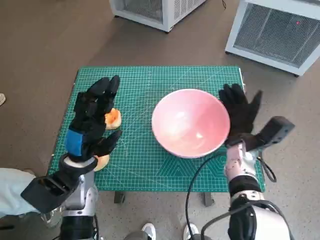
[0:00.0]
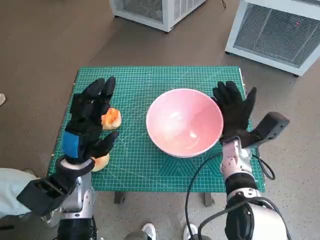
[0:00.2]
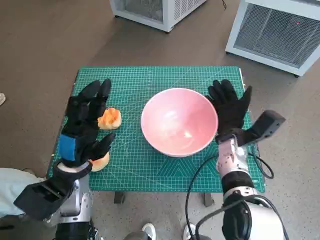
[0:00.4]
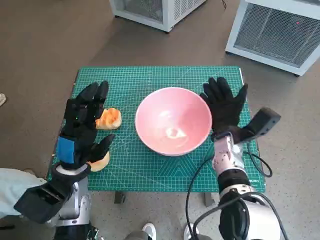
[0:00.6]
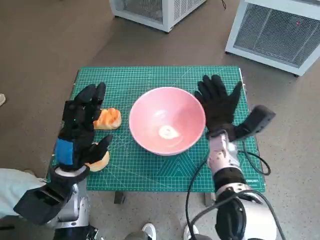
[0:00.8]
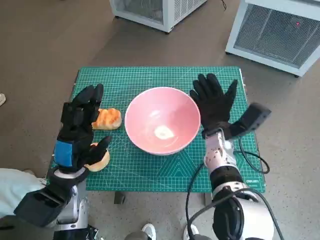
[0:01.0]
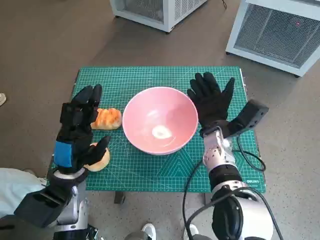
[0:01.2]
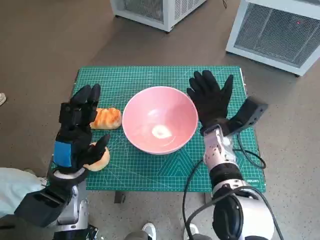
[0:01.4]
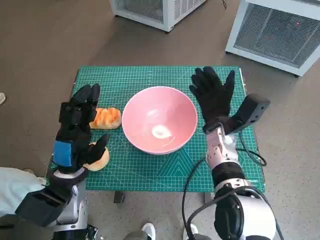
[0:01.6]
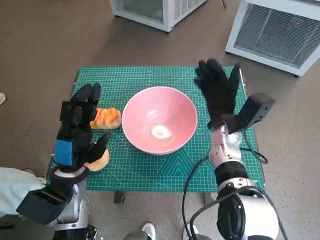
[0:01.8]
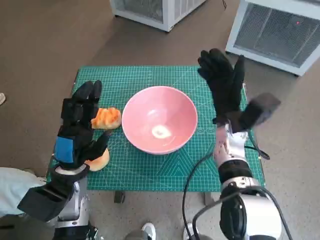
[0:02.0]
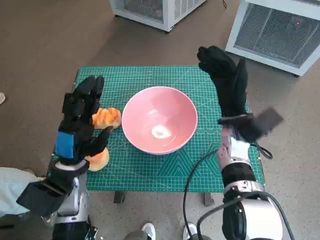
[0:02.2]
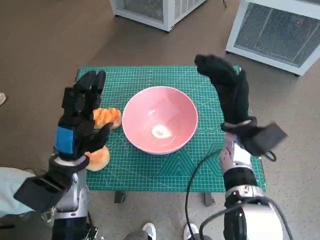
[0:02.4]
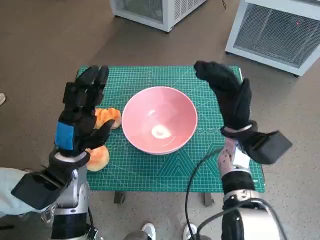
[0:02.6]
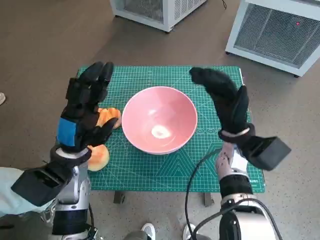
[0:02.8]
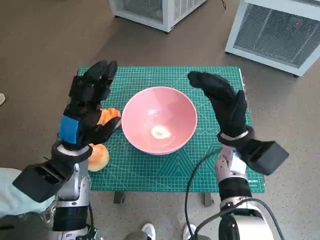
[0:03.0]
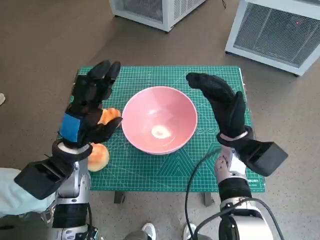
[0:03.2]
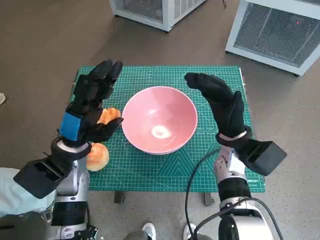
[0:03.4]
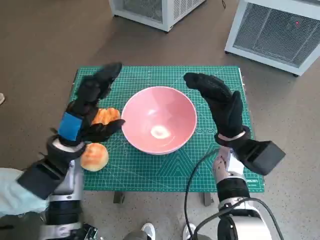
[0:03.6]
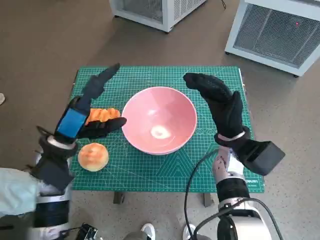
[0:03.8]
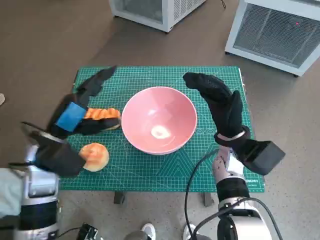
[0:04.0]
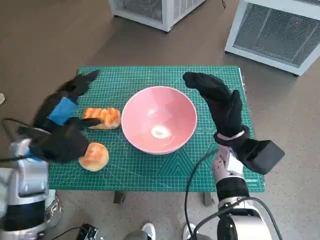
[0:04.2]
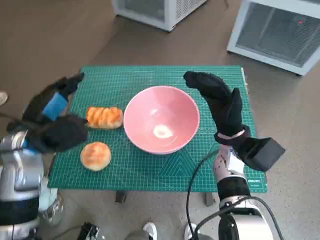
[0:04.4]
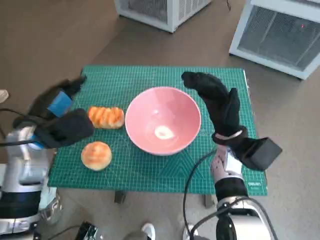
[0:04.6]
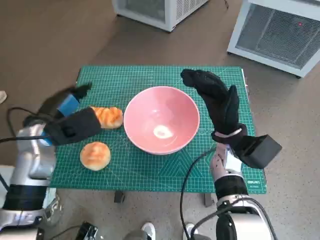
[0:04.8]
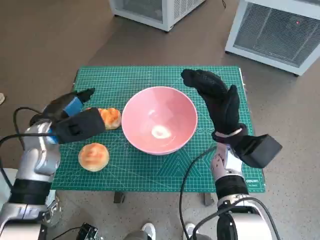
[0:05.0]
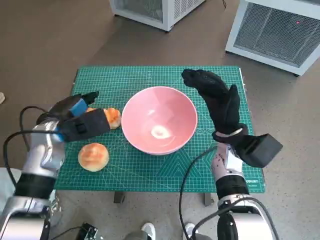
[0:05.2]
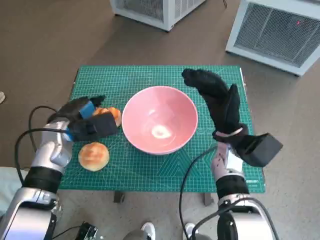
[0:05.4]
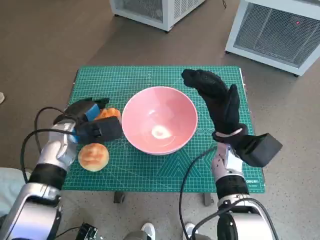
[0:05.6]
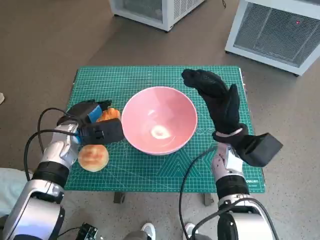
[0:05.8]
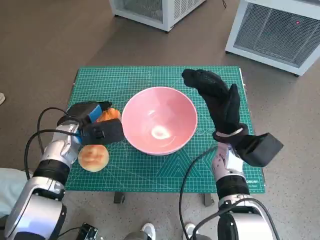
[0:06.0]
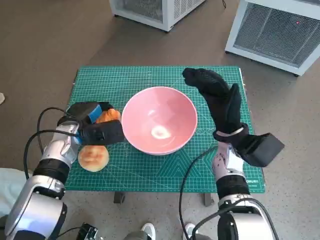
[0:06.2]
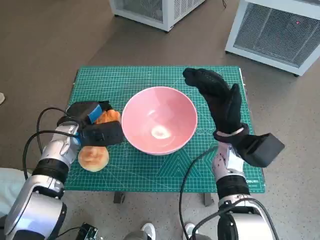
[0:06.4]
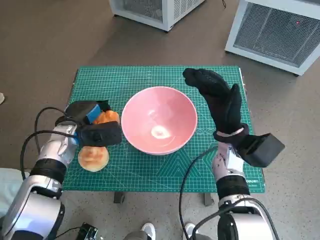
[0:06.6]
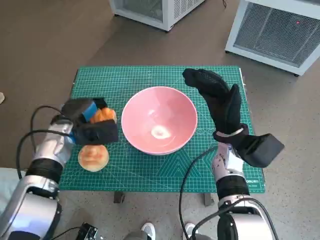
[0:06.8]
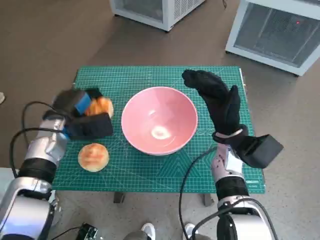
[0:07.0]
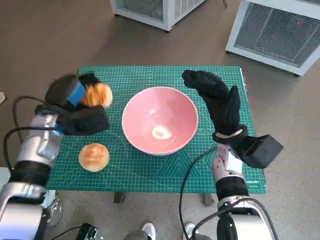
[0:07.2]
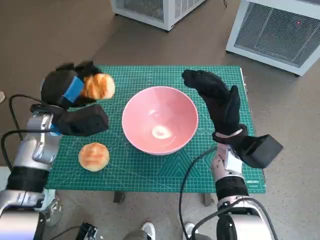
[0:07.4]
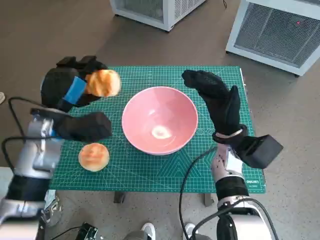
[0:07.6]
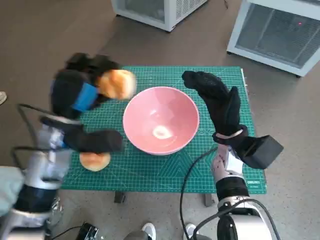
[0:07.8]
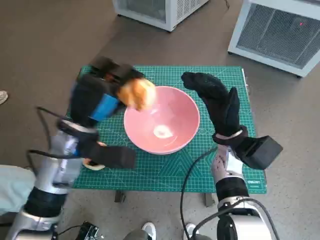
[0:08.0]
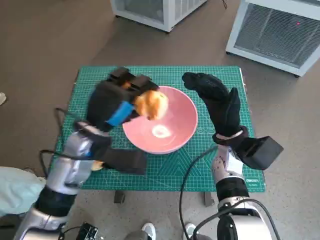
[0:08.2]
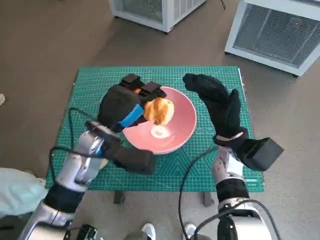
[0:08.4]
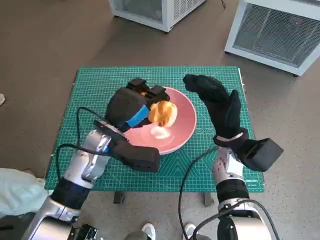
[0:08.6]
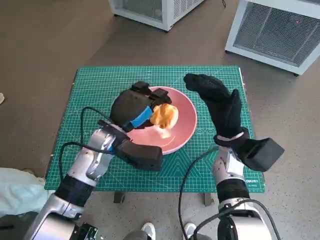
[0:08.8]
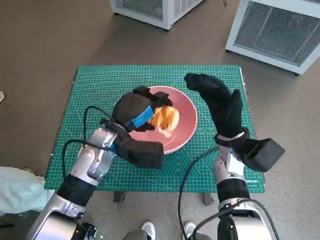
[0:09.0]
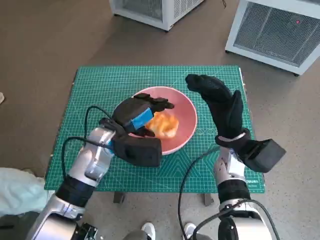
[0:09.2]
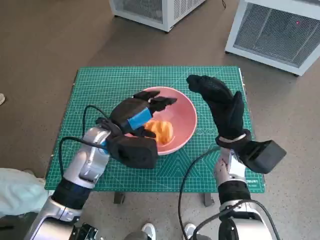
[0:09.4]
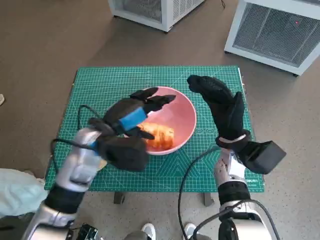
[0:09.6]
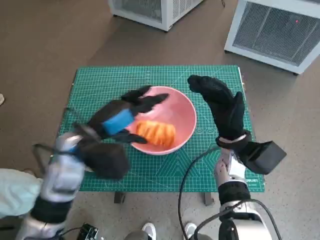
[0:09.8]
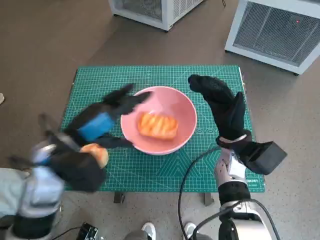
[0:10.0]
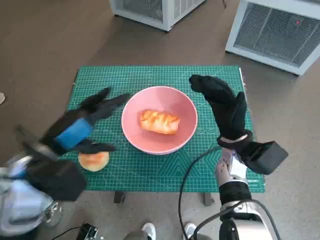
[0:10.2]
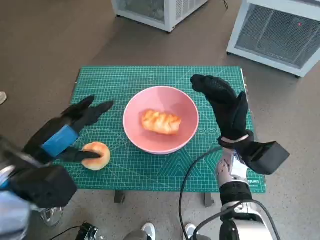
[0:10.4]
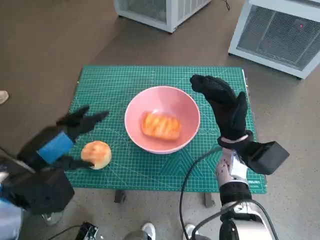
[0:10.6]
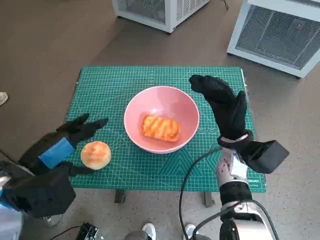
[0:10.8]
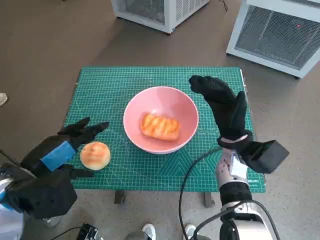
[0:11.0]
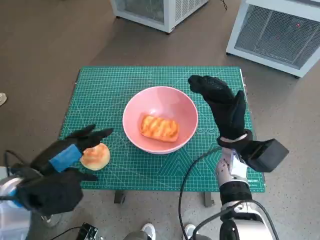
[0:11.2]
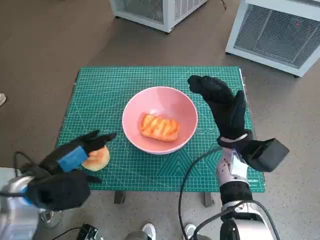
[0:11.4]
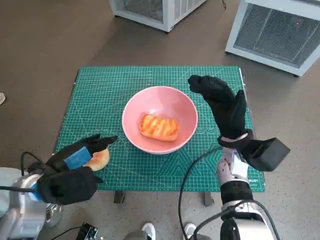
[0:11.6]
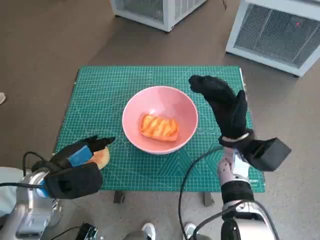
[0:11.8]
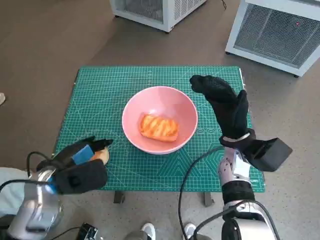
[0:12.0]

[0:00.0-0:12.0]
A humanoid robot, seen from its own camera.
Task of the whole recording: Push the bowl into the center of the table and put the bread into the bowl.
Step, 0:01.8 to 0:06.2: Grasp the long bread with left hand.
Step, 0:06.4 to 0:09.6: Place the long bread in pink bowl with left hand.
0:00.0 to 0:01.6: The right hand travels to the left by approximately 5 cm.
0:01.6 to 0:03.0: The left hand ends up some 5 cm from where it was.
0:03.0 to 0:04.4: The left hand goes some 5 cm to the left.
0:04.4 to 0:06.0: The left hand moves downward and forward, about 10 cm.
0:06.0 to 0:07.6: The left hand heads upward, covering roughly 5 cm.
0:07.6 to 0:09.0: The left hand is displaced to the right by some 10 cm.
0:09.0 to 0:10.4: The left hand travels to the left, backward and upward by some 15 cm.
0:10.4 to 0:12.0: The left hand heads downward, covering some 10 cm.

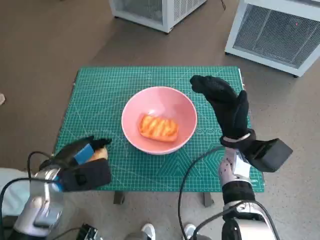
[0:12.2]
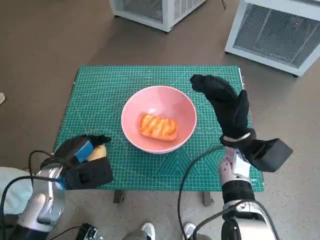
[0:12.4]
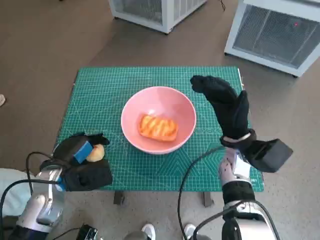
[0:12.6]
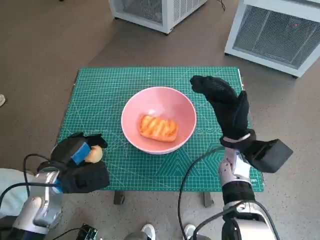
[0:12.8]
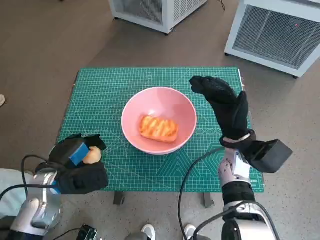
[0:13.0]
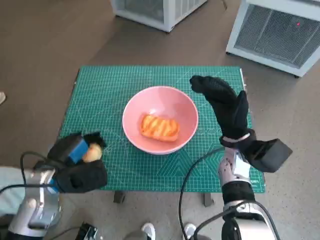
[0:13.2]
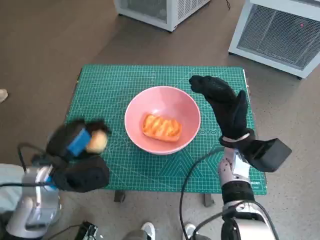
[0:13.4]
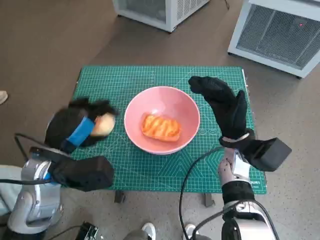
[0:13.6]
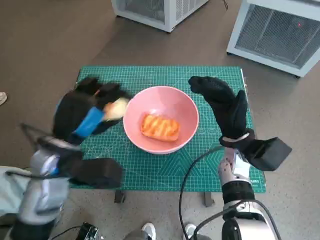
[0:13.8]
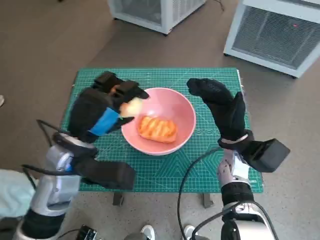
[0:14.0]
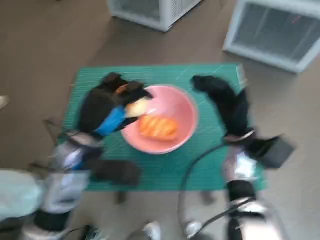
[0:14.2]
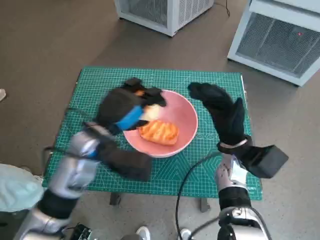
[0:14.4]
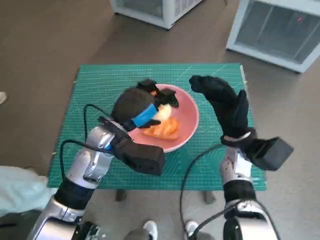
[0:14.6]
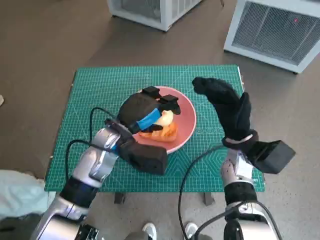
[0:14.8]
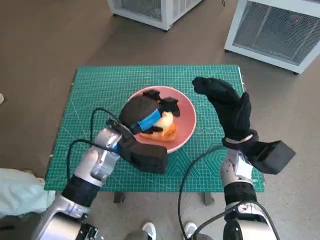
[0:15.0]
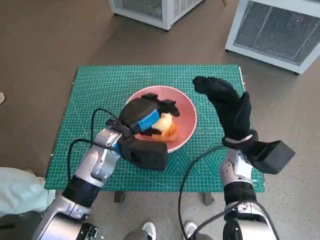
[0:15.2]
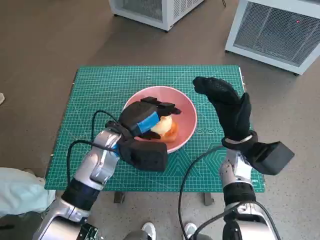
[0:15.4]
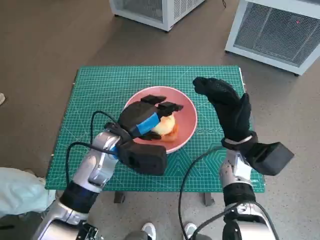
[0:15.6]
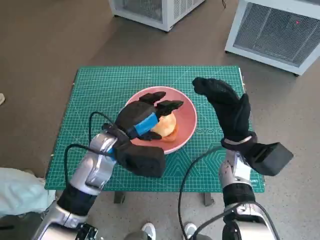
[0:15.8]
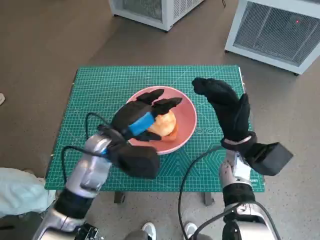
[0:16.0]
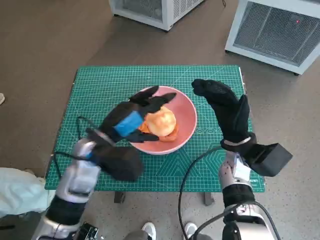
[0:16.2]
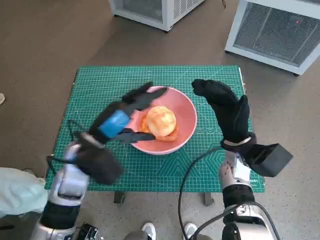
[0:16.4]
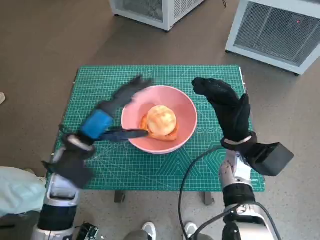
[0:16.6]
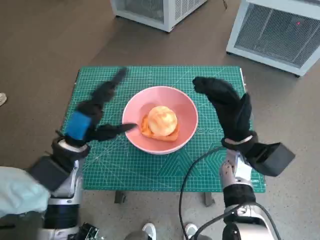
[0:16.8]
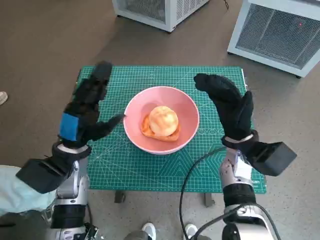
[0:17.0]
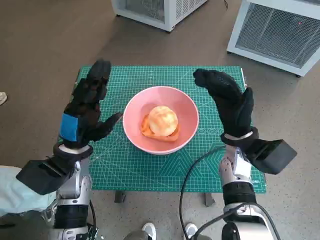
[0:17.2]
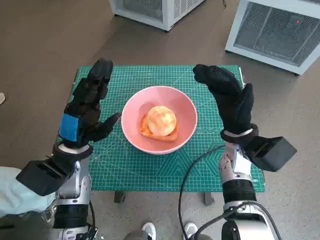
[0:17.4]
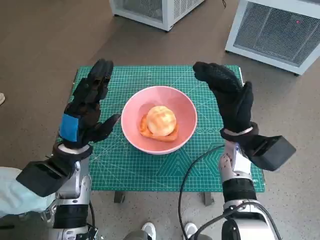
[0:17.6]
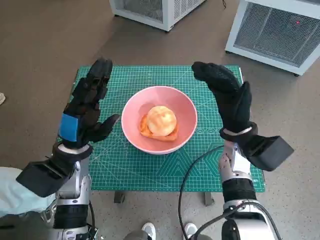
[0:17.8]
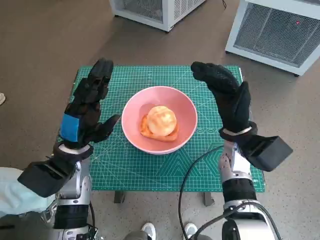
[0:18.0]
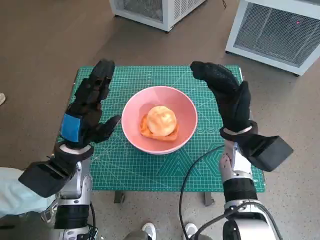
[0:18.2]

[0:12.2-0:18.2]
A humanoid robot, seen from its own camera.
Task of the whole recording: Push the bowl into the center of the table and put the bread into the bowl.
Step, 0:12.4 to 0:16.2: Place the round bread in pink bowl with left hand.
0:12.2 to 0:13.8: The left hand moves upward, approximately 10 cm.
0:13.8 to 0:15.2: The left hand travels to the right, forward and downward by approximately 10 cm.
0:15.2 to 0:16.6: The left hand travels to the left by about 5 cm.

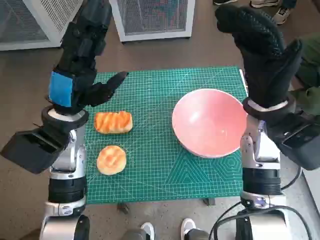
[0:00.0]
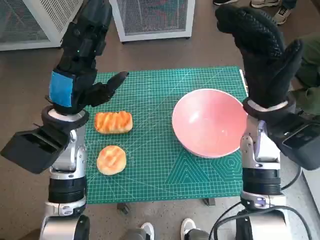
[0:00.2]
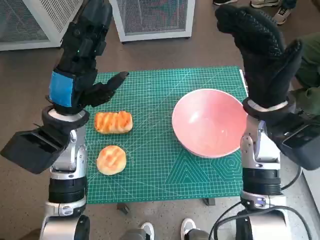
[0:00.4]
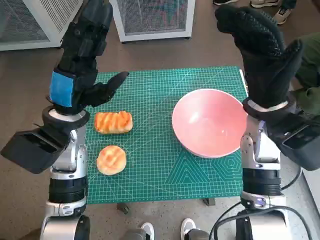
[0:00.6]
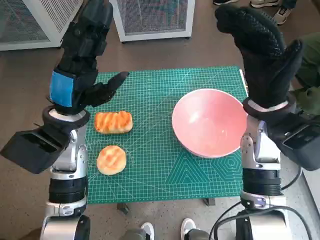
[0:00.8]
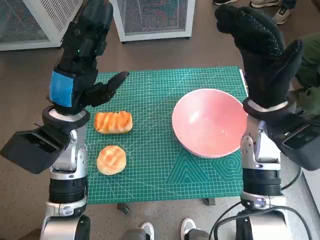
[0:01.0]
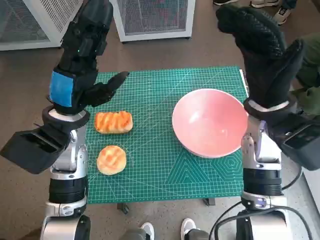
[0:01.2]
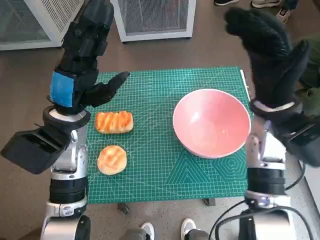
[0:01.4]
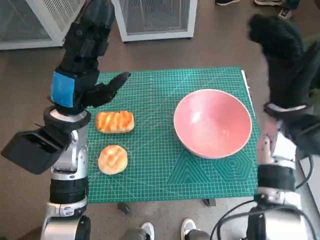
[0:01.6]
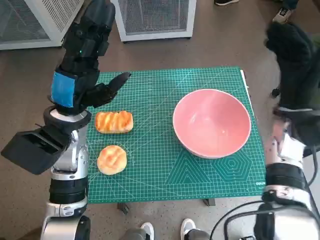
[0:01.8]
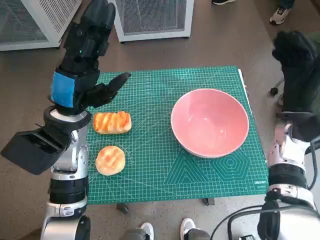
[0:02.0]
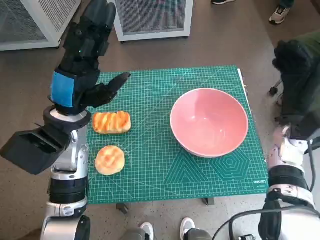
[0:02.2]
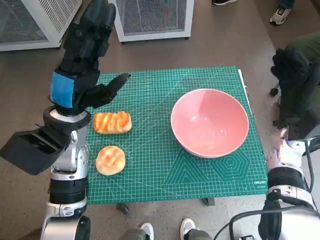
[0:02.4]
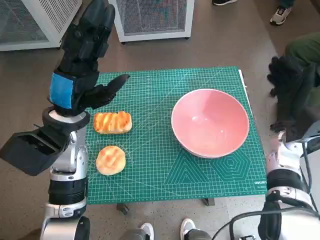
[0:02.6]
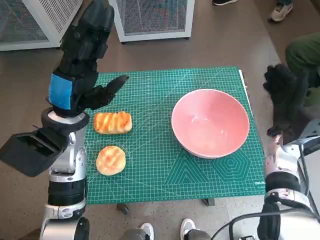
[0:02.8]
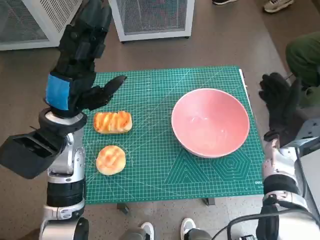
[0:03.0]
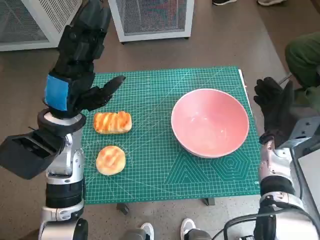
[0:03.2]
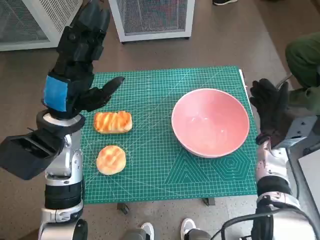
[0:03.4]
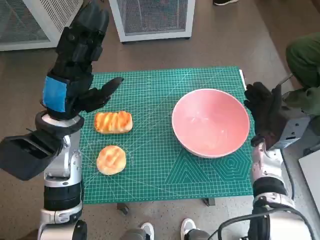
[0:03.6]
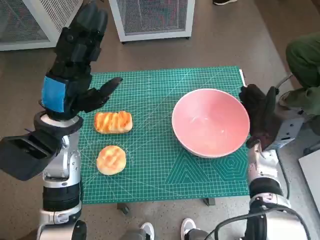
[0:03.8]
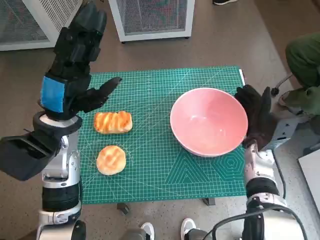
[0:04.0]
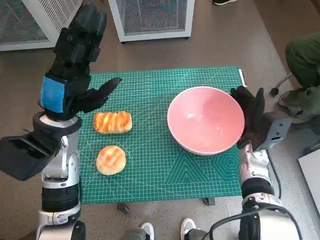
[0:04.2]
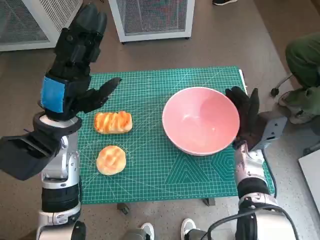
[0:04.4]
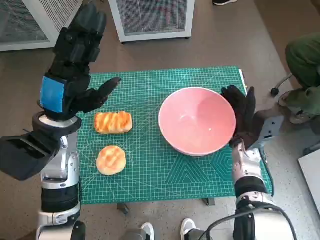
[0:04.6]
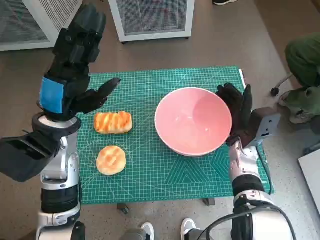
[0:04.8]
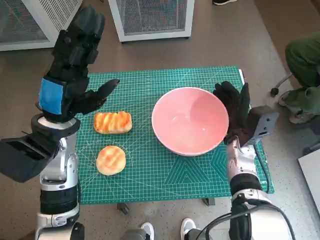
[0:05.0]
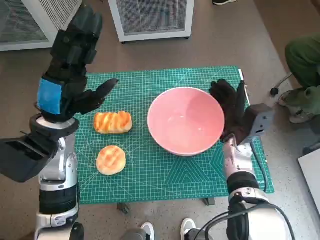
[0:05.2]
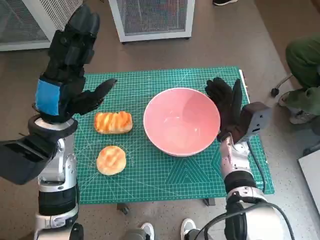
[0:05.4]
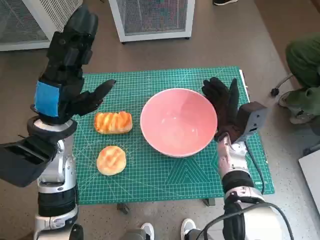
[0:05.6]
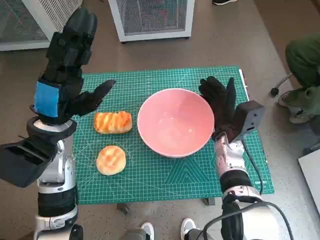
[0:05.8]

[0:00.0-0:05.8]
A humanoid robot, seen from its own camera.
Task of the whole recording: Push the bowl into the center of the table and put the bread into the bowl.
0:01.4 to 0:02.8: The right hand moves downward and to the right, roughly 15 cm.
0:02.8 to 0:04.4: The right hand goes about 5 cm to the left.
0:04.4 to 0:05.8: The right hand shifts by some 5 cm.
